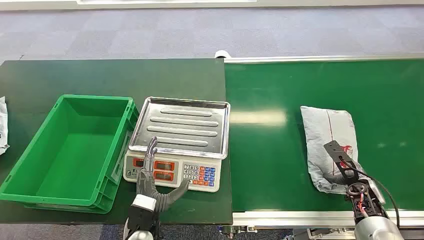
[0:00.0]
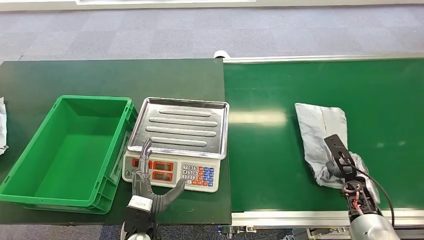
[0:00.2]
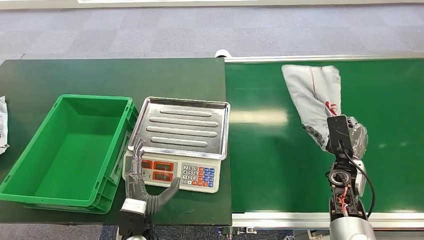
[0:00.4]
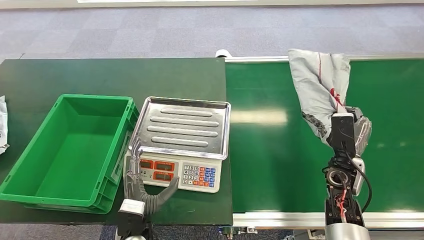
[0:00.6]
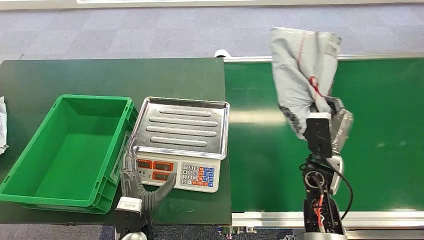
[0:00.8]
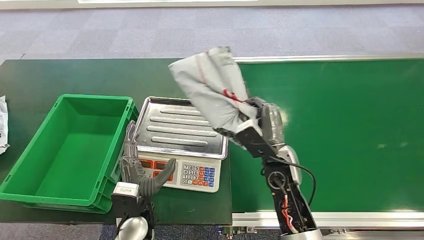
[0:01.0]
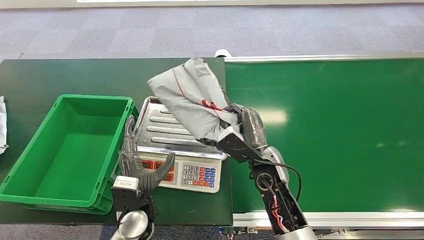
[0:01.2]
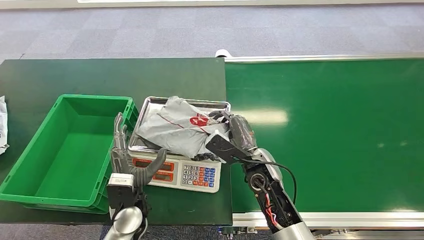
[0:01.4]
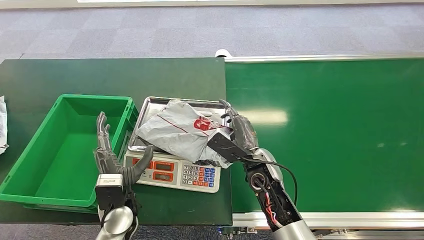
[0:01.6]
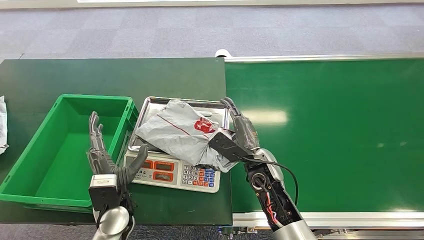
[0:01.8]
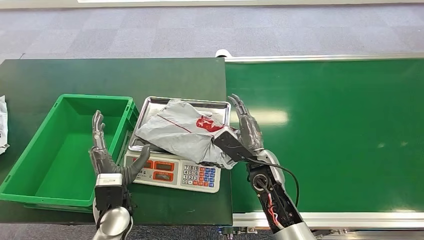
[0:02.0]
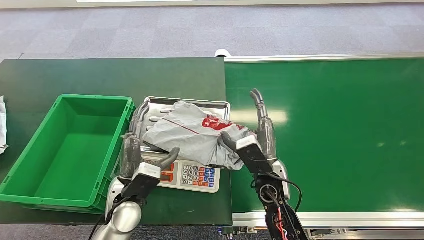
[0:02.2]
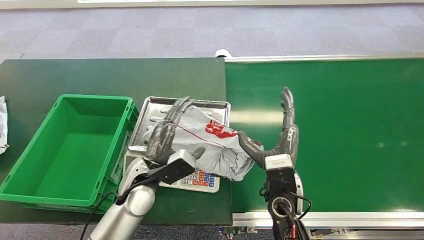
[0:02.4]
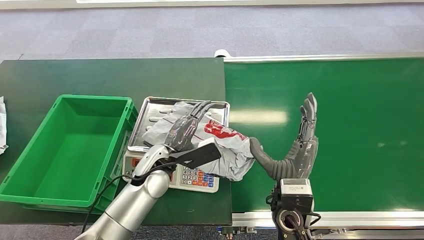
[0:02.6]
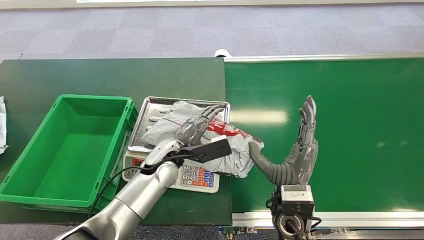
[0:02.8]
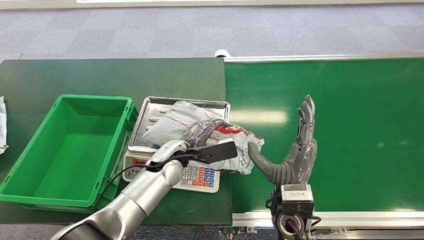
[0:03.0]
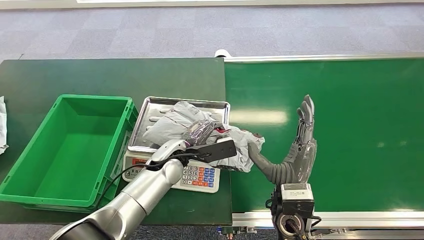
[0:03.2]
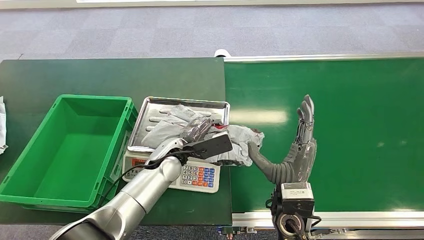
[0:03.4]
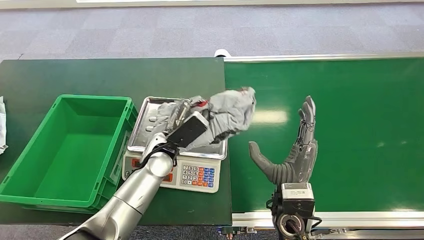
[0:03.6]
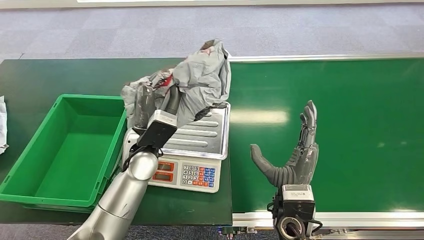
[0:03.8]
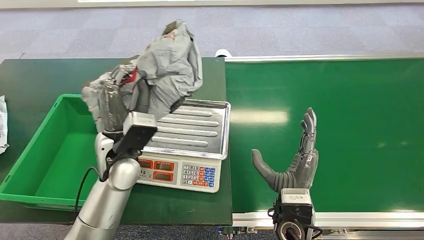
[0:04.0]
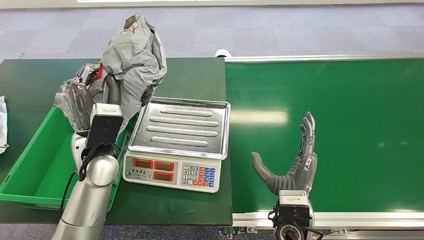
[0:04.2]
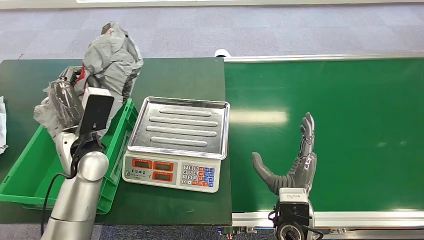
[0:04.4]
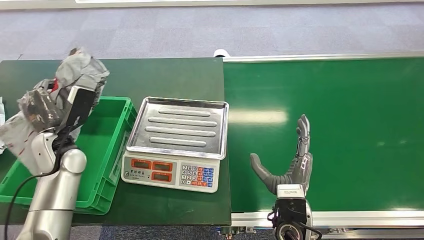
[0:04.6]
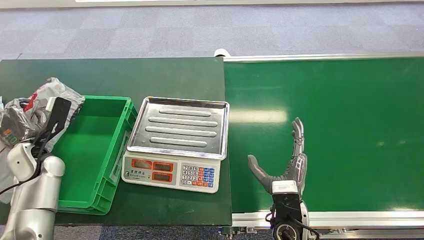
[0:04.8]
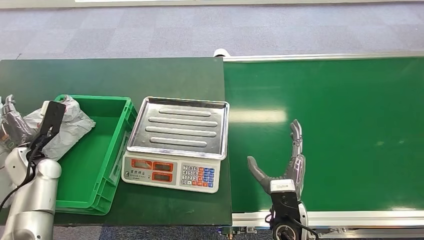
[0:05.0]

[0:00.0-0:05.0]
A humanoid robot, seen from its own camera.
Step, 0:00.0 to 0:00.4: Pick up the package from the conveyor belt.
Step, 0:01.2 to 0:01.6: Place the package onto the inbound machine.
Step, 0:03.4 to 0:04.0: Pick up the package from the inbound machine.
Step, 0:04.6 to 0:05.0: Place the package into the parcel locker.
0:01.6 to 0:03.4: The left hand shifts some 15 cm forward and to the right. The right hand goes about 10 cm backward.

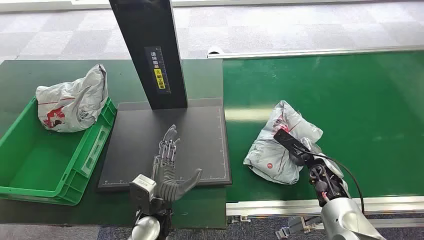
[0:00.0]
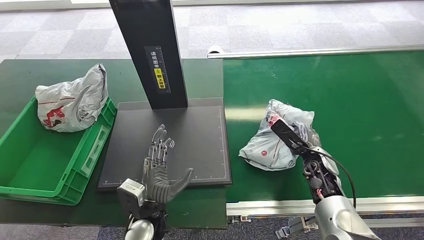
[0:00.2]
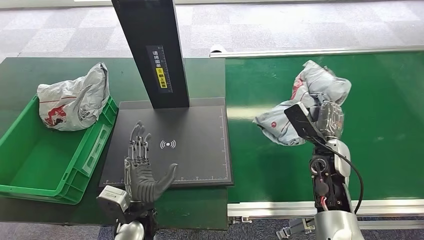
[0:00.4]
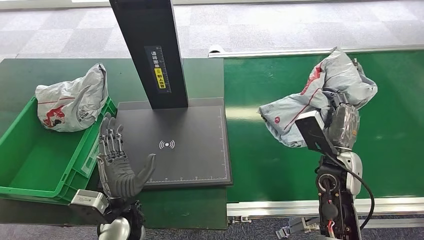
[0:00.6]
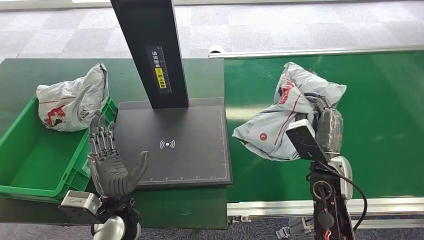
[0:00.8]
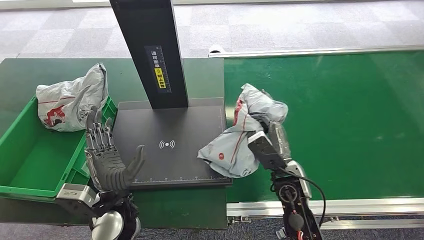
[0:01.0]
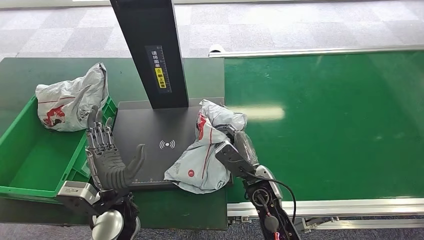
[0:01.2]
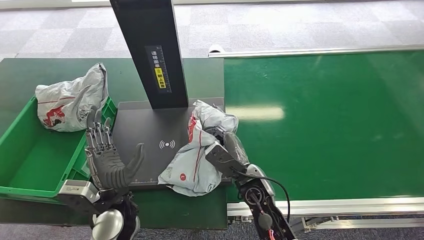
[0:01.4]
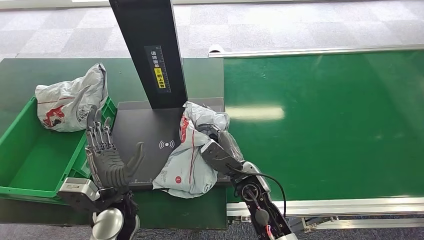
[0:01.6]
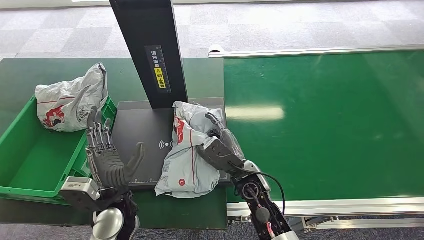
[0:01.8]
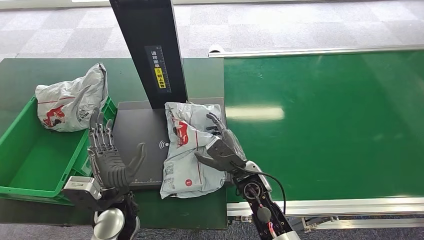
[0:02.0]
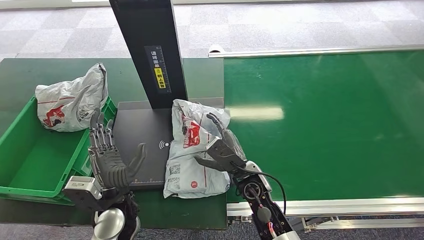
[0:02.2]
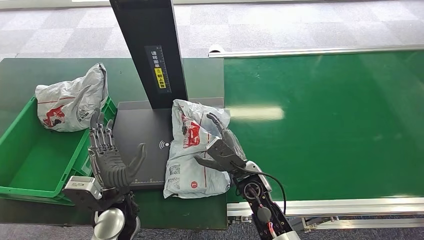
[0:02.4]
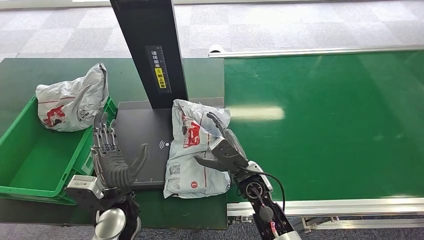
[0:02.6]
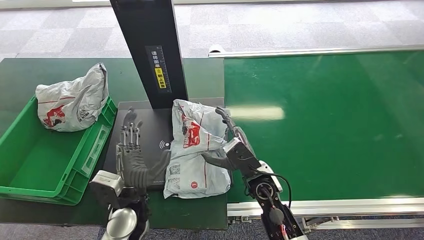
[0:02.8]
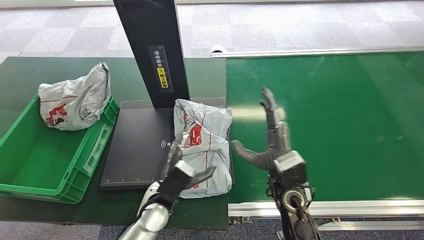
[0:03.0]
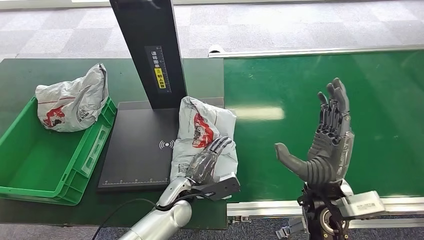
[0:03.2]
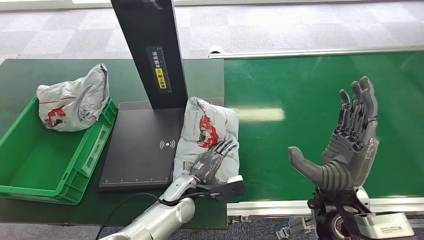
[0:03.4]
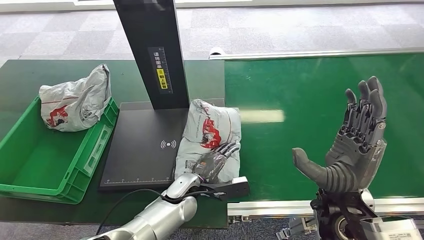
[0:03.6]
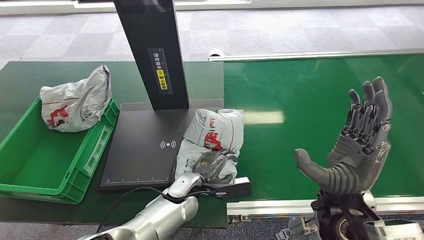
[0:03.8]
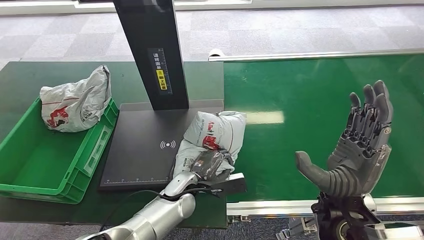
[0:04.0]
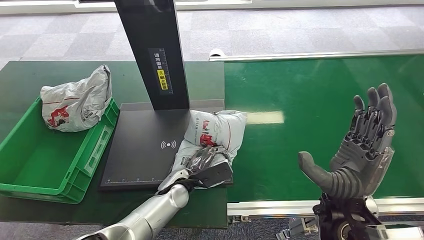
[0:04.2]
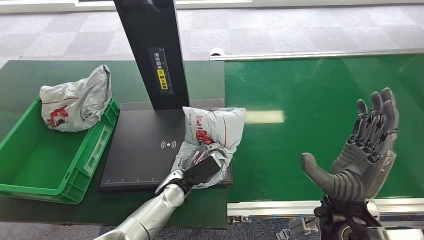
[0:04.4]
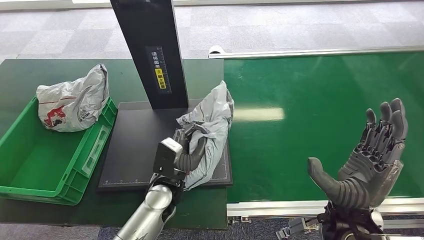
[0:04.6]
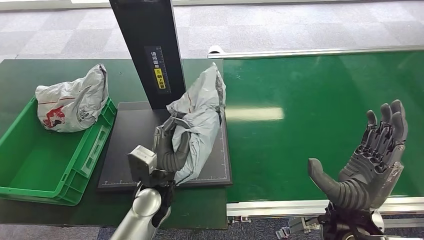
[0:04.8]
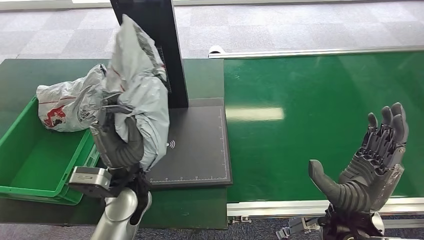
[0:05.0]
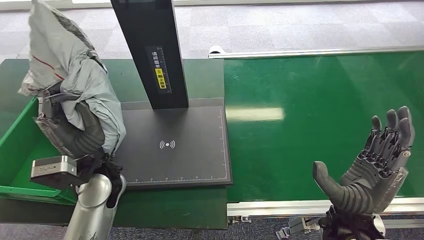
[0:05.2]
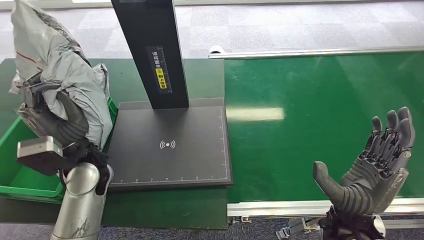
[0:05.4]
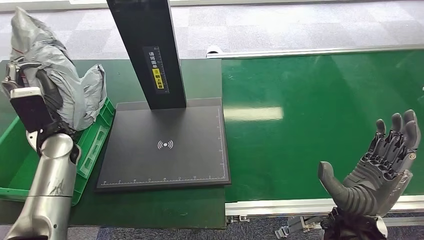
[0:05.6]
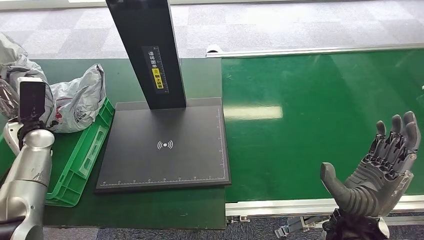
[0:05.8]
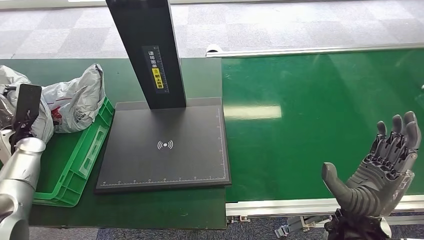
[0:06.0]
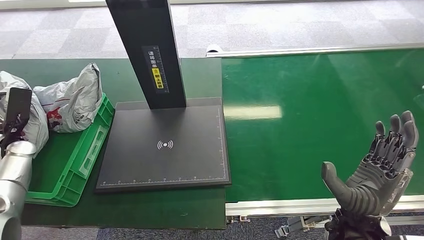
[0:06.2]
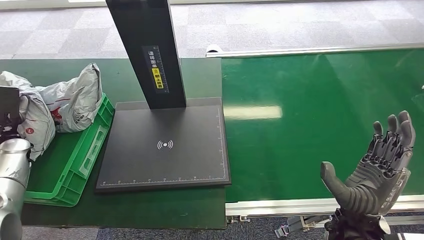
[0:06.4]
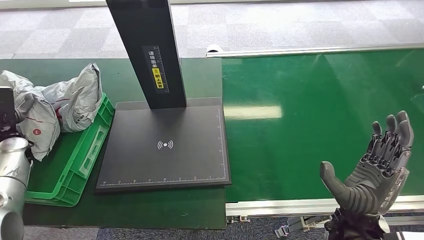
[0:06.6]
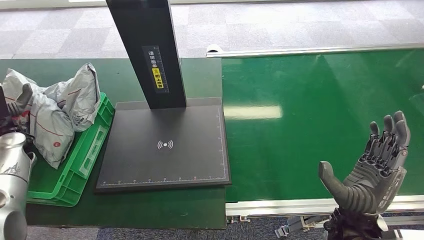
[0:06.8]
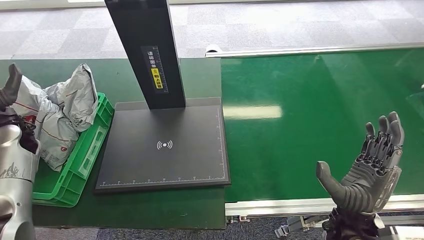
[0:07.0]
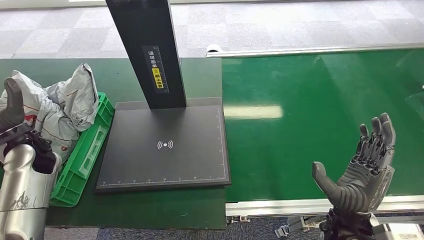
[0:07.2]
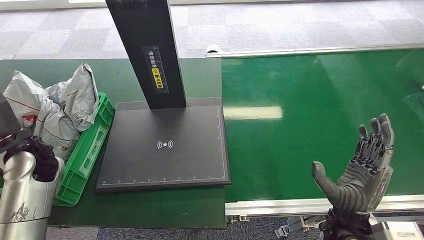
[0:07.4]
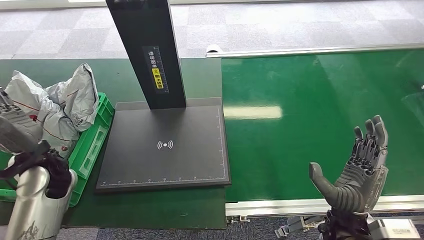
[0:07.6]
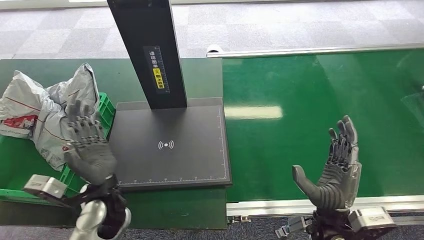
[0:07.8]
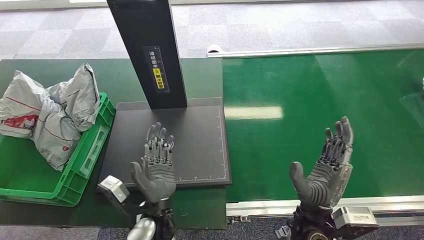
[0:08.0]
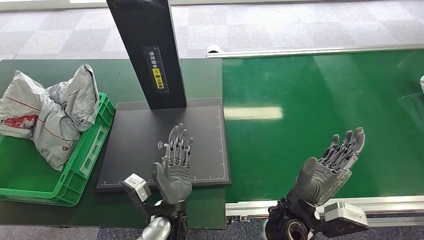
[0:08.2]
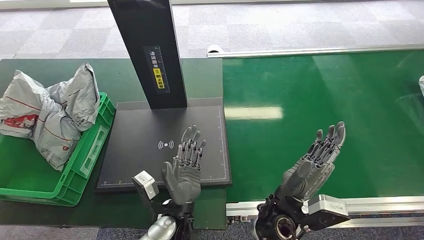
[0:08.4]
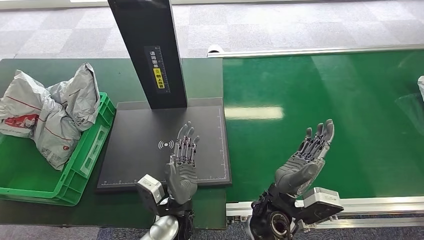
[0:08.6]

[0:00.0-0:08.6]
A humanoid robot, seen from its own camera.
Step, 0:00.0 to 0:01.0: Pick up the package from the conveyor belt.
Step, 0:01.2 to 0:03.0: Place the package onto the inbound machine.
Step, 0:03.2 to 0:05.2: Pick up the package from the inbound machine.
Step, 0:05.4 to 0:08.6: Place the package into the parcel locker.
0:01.4 to 0:02.8: The hands move only a little.
